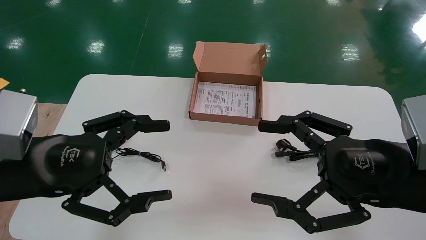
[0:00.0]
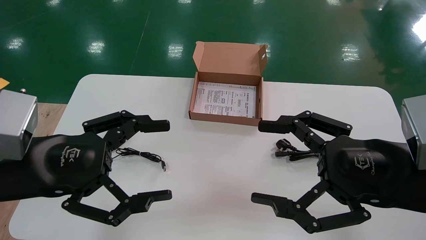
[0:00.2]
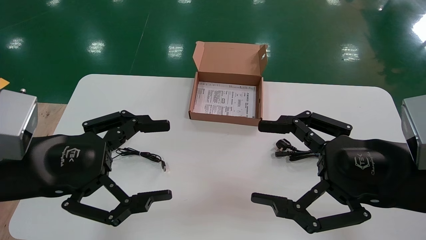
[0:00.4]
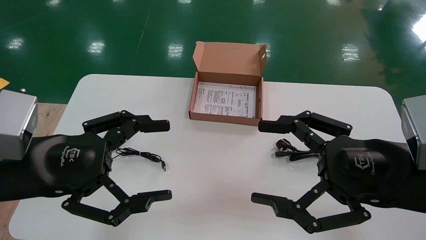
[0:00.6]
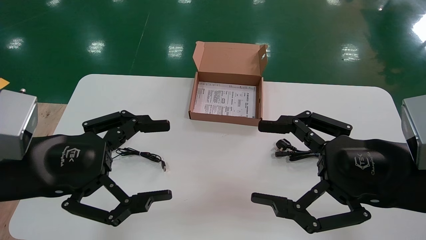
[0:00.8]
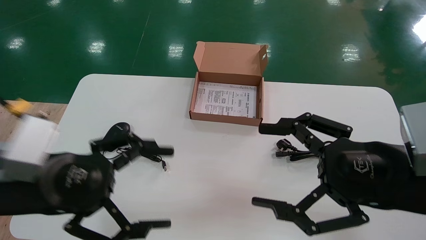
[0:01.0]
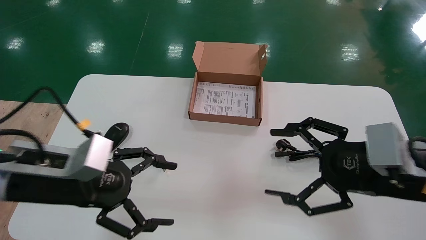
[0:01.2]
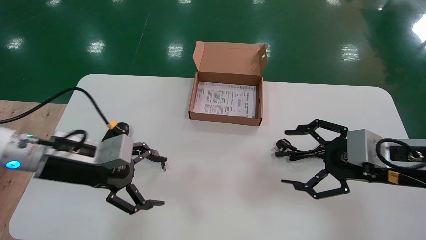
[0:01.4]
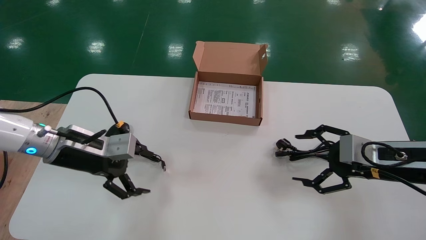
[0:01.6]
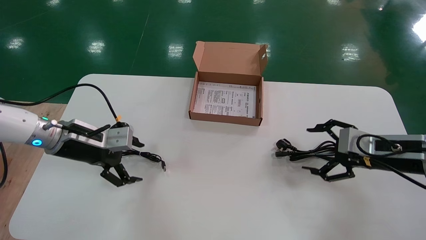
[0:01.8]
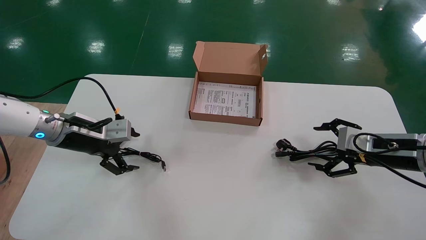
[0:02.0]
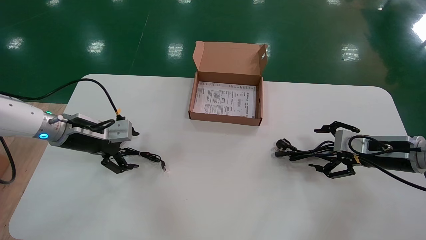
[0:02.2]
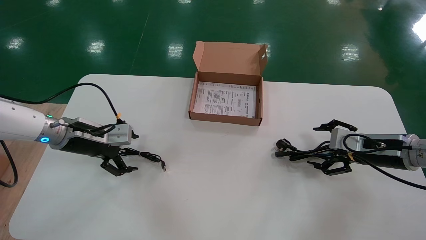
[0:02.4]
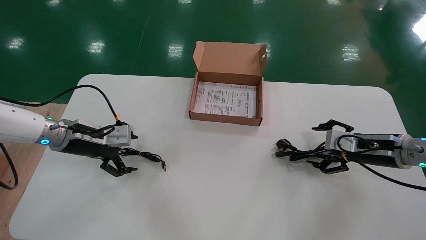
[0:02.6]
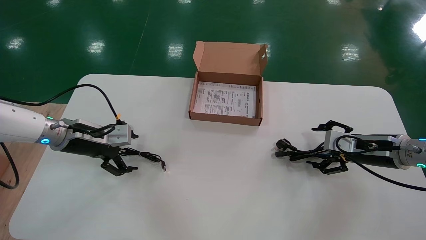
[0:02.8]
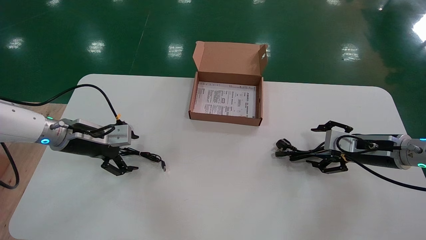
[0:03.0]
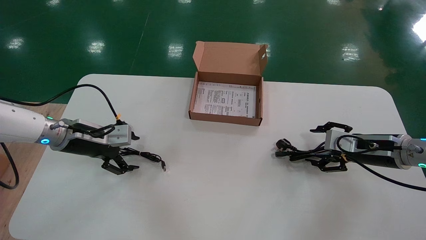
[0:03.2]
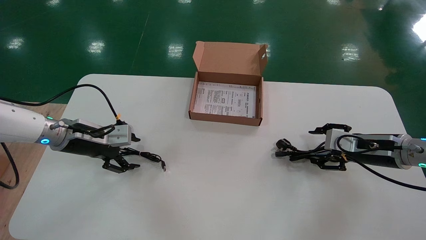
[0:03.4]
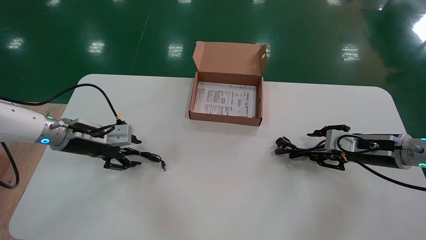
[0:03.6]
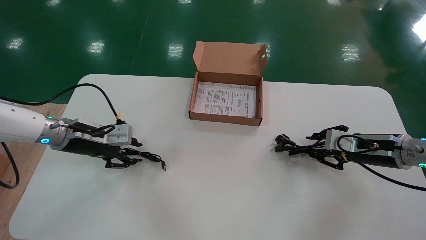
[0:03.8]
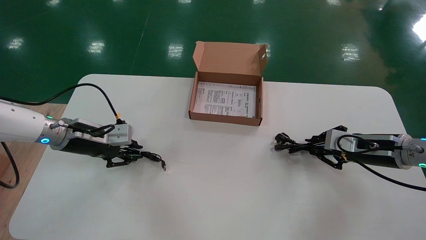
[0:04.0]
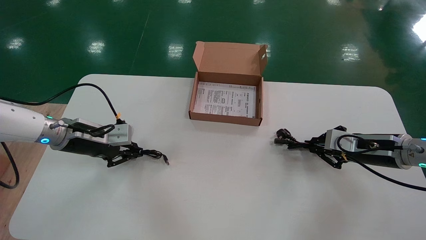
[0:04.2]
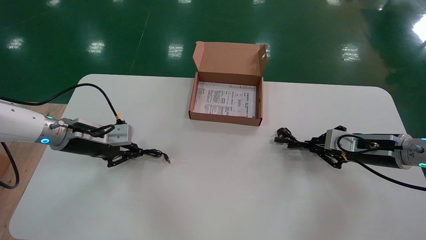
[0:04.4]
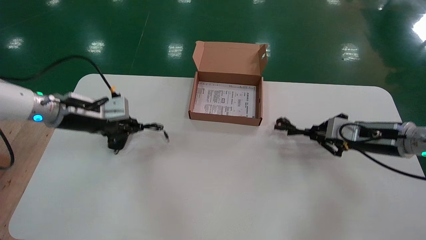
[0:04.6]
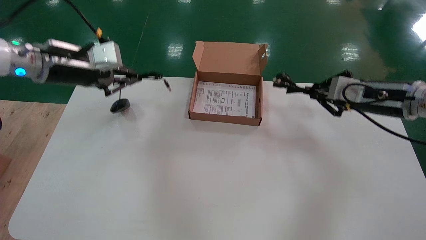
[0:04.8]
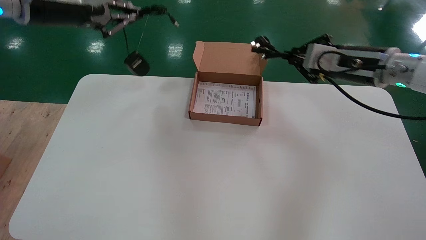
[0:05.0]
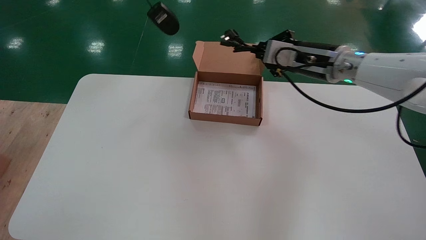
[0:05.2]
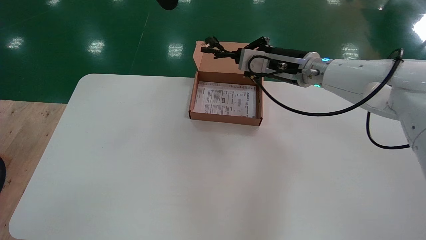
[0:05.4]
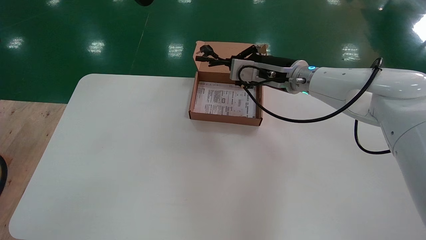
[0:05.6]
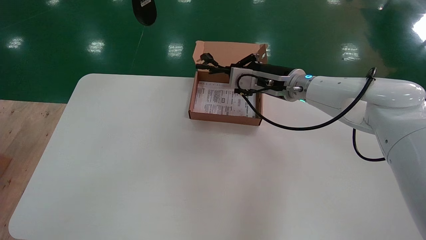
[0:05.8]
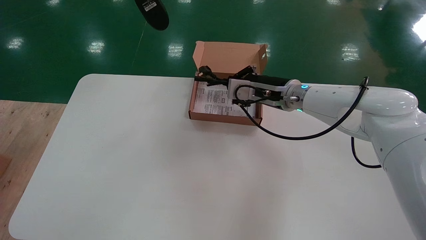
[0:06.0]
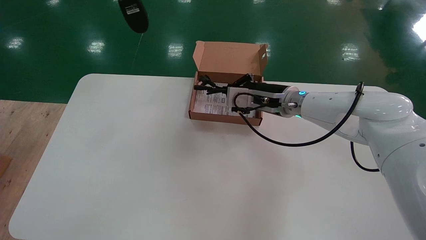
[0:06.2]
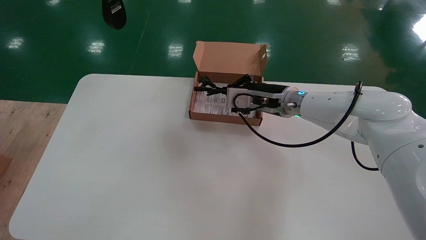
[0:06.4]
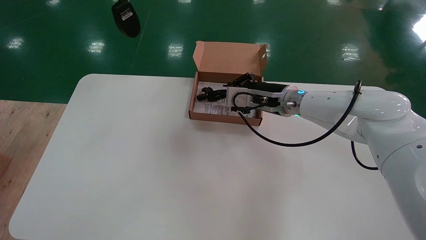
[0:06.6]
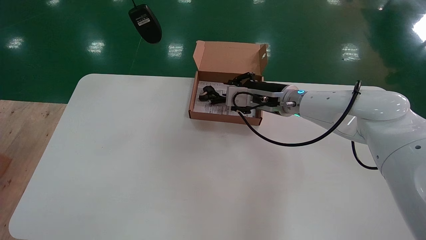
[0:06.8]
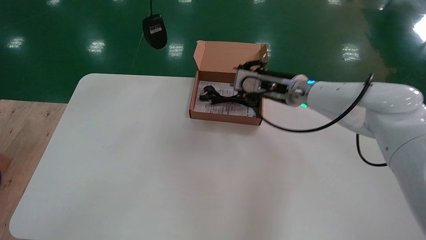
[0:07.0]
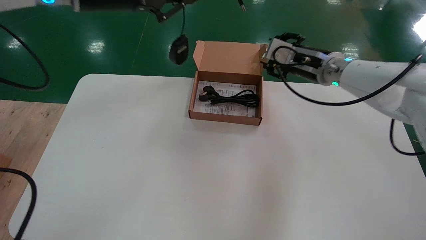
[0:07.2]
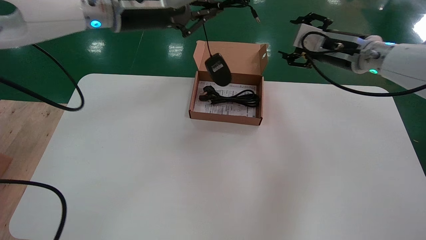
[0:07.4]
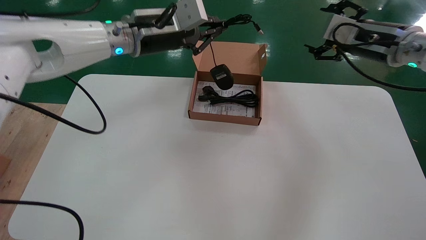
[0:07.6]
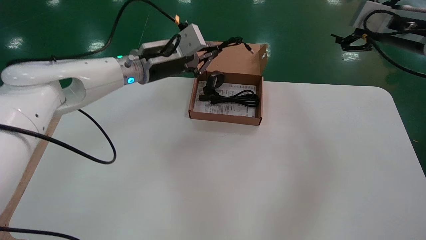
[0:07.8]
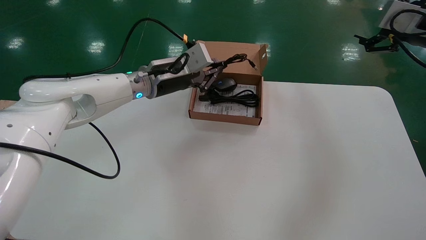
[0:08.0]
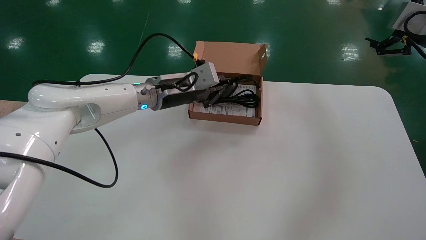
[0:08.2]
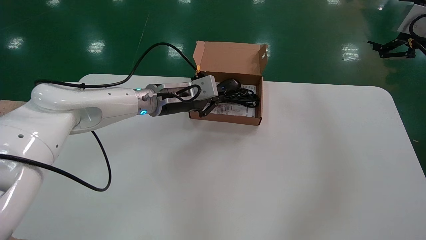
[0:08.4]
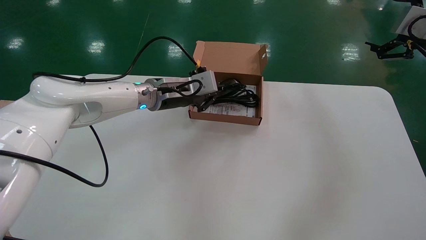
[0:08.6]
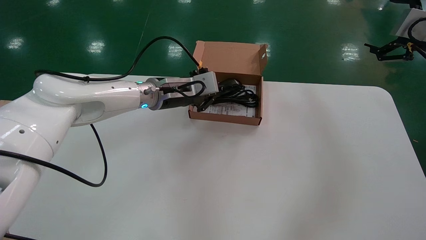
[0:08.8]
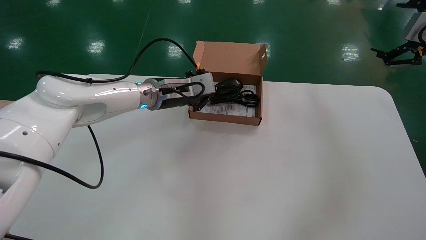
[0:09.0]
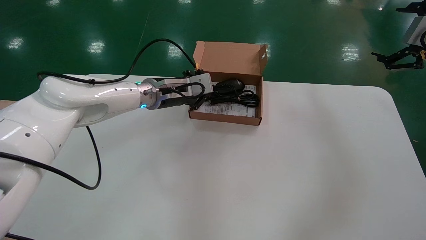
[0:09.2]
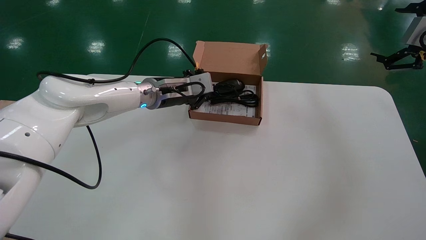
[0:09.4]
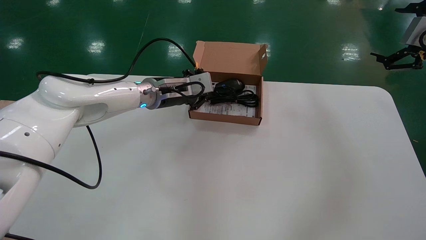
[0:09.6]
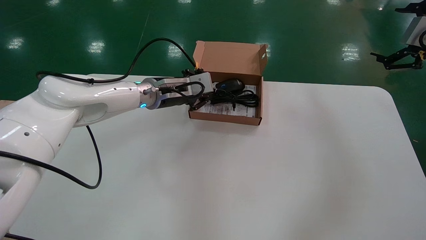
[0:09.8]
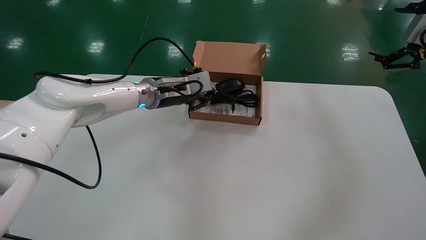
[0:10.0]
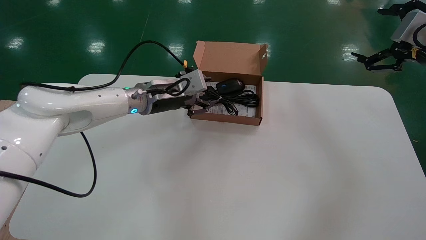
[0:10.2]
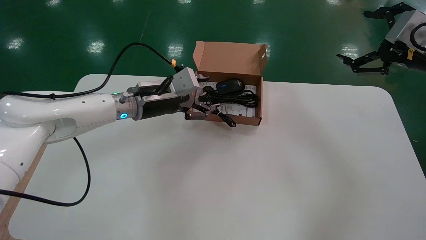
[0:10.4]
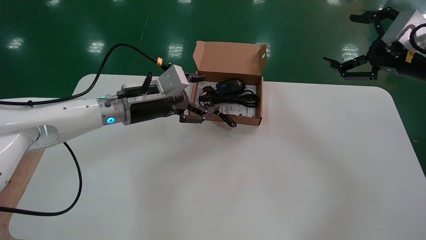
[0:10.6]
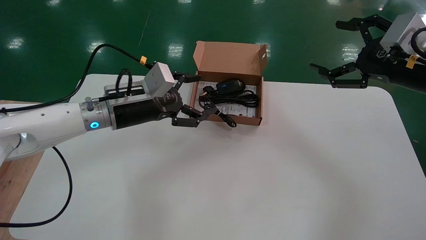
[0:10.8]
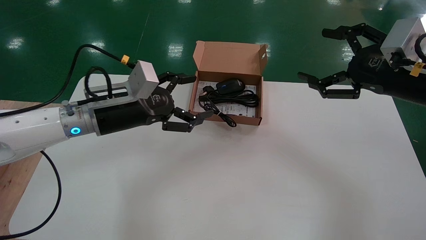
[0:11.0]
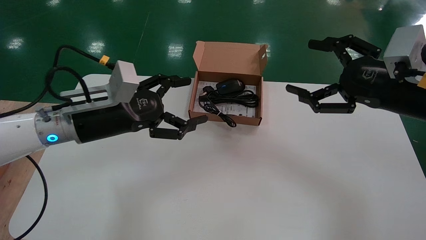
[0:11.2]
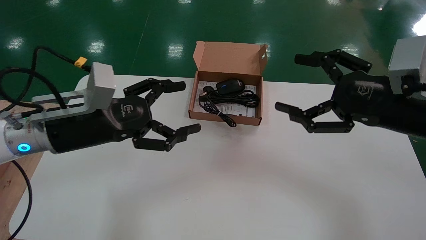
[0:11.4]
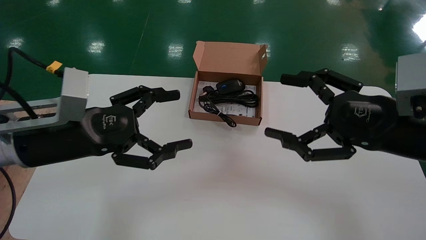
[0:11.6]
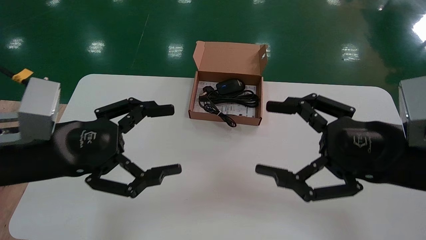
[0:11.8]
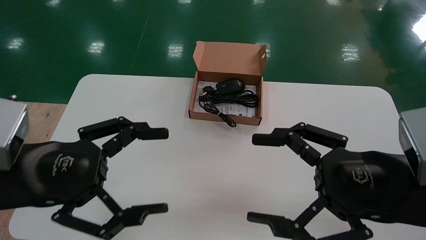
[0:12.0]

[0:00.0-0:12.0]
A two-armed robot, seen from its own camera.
Step, 0:01.2 to 0:04.4: Simultaneously pick up the mouse and power cord from the accessory packaging area.
Step, 0:04.6 to 0:10.2: Place the mouse and power cord into the box.
0:00.0 to 0:01.6: The left gripper is displaced forward by about 15 cm. The right gripper shifts roughly 15 cm forward and to the right.
0:01.6 to 0:03.0: Both grippers travel together forward, roughly 5 cm.
0:03.0 to 0:04.4: The right gripper closes. The left gripper closes up.
0:04.4 to 0:06.0: The left gripper moves upward, roughly 35 cm, while the right gripper goes some 20 cm to the left.
0:06.0 to 0:07.6: The left gripper travels downward, to the right and forward by some 25 cm. Meanwhile the right gripper travels to the right and upward by approximately 20 cm, and opens its fingers.
0:07.6 to 0:09.0: The left gripper is displaced downward by approximately 10 cm. Meanwhile the right gripper shifts roughly 15 cm to the right and backward.
0:09.0 to 0:10.4: The right gripper changes place by approximately 5 cm. Meanwhile the left gripper ends up about 5 cm from where it was, and opens up.
0:10.4 to 0:12.0: The right gripper shifts approximately 25 cm backward, to the left and downward. Meanwhile the left gripper heads backward and to the left, covering roughly 25 cm, and opens its fingers.

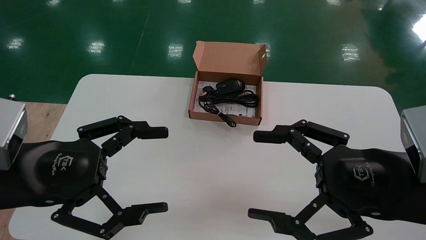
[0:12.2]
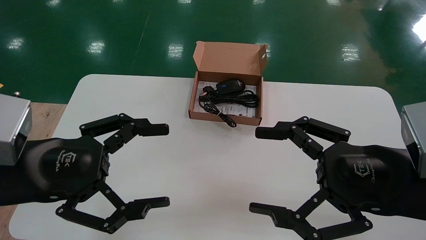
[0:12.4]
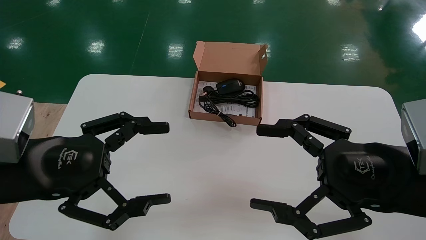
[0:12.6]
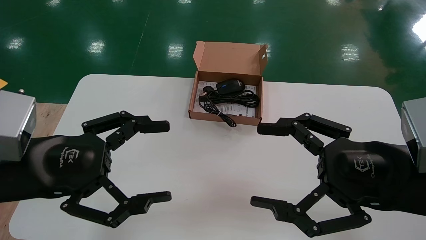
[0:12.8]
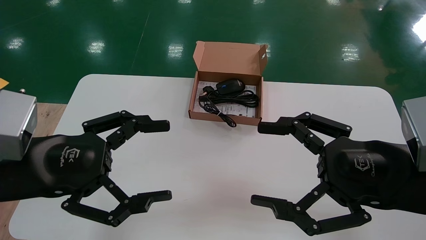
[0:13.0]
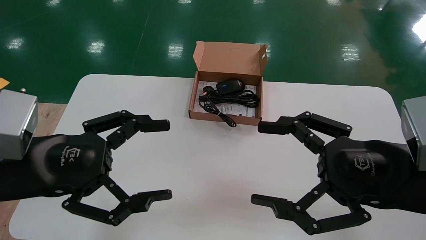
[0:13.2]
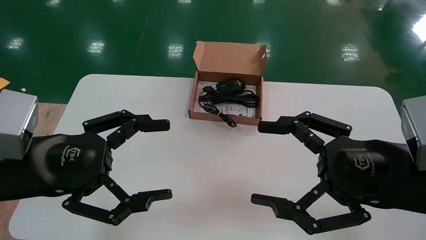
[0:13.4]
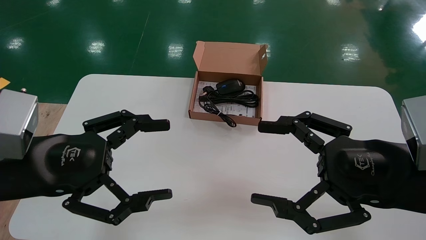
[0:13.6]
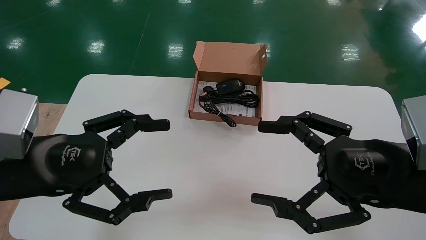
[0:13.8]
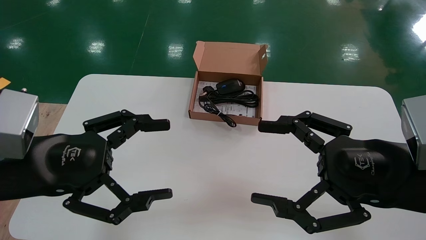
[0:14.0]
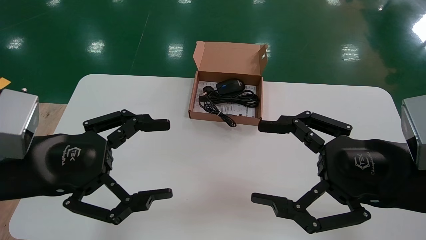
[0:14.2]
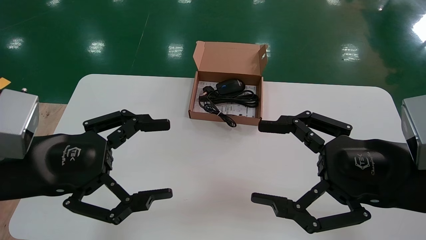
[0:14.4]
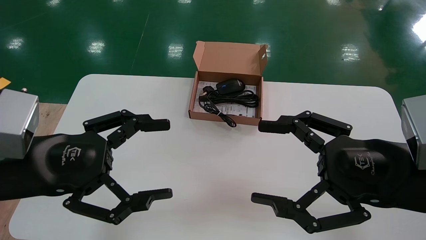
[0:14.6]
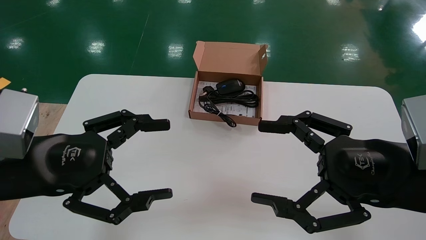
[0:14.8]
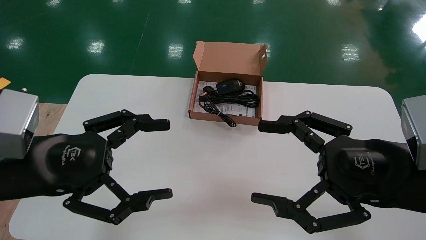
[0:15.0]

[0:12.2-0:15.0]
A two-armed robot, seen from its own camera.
0:12.2 to 0:15.0: Neither gripper changes place.
